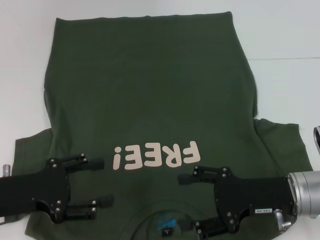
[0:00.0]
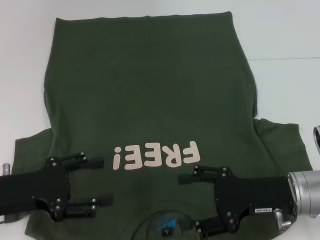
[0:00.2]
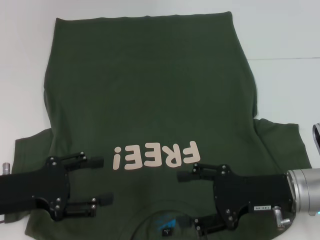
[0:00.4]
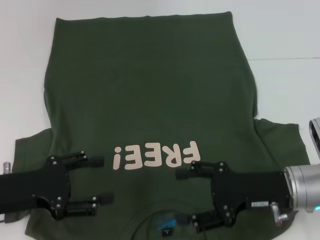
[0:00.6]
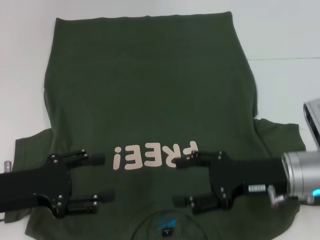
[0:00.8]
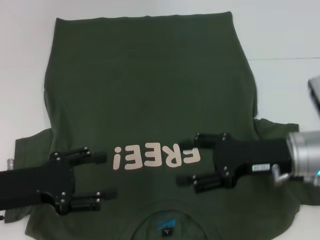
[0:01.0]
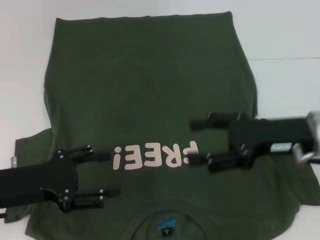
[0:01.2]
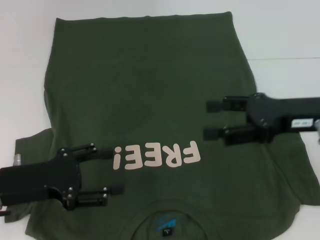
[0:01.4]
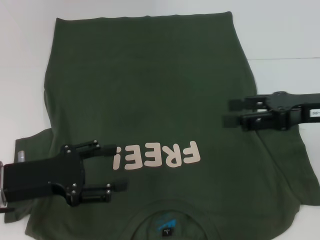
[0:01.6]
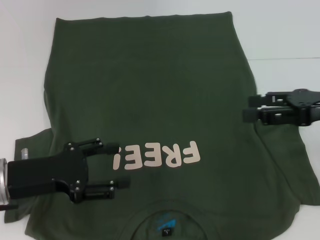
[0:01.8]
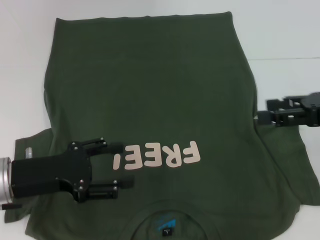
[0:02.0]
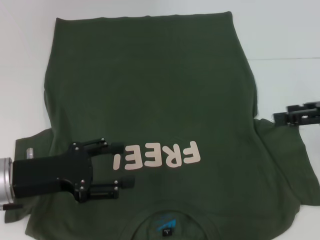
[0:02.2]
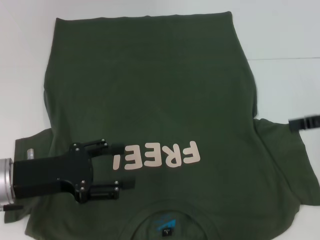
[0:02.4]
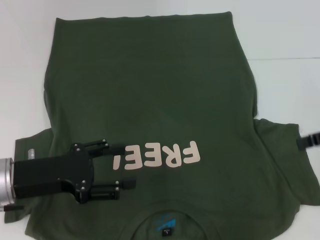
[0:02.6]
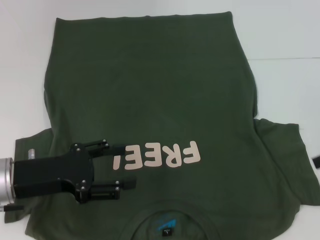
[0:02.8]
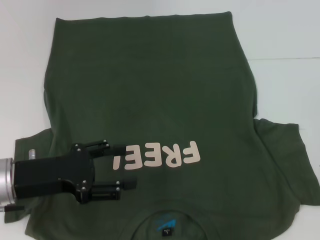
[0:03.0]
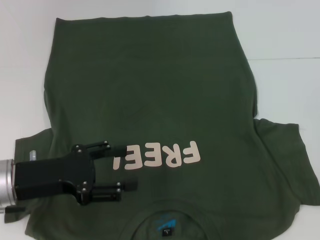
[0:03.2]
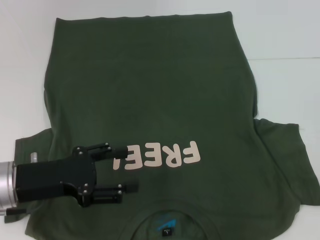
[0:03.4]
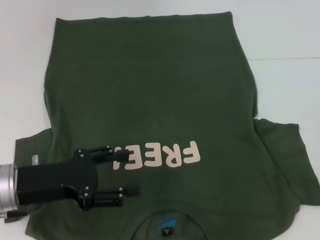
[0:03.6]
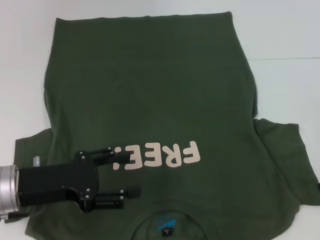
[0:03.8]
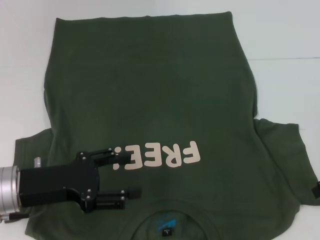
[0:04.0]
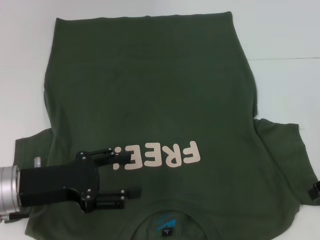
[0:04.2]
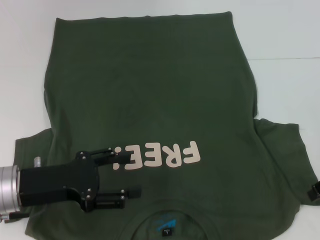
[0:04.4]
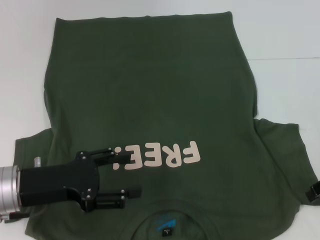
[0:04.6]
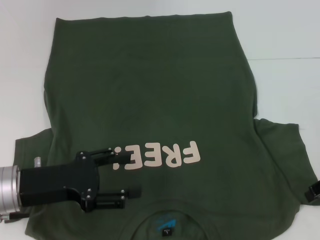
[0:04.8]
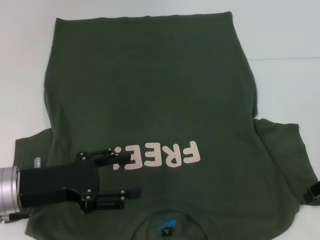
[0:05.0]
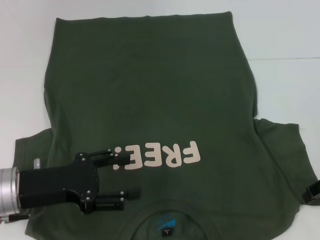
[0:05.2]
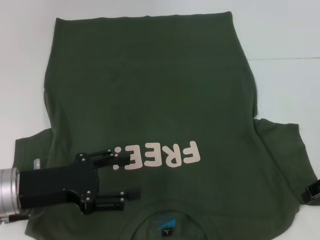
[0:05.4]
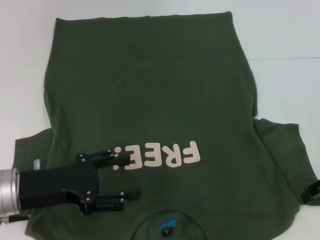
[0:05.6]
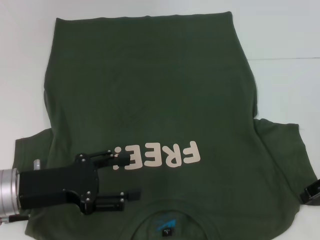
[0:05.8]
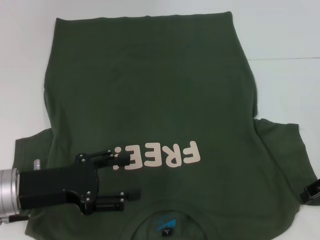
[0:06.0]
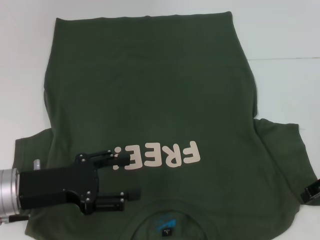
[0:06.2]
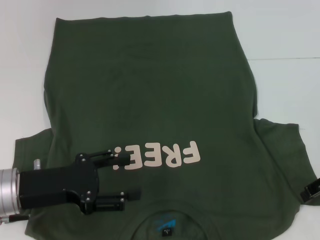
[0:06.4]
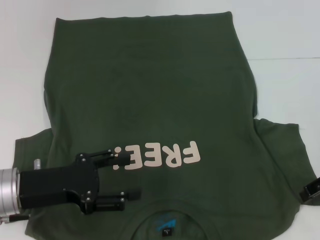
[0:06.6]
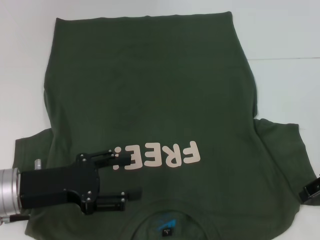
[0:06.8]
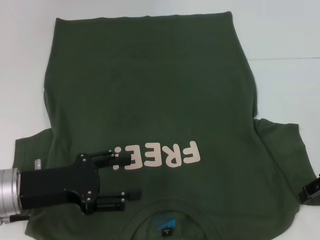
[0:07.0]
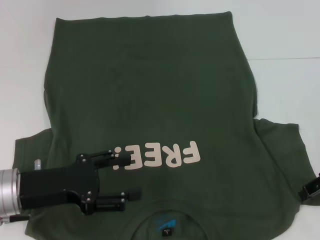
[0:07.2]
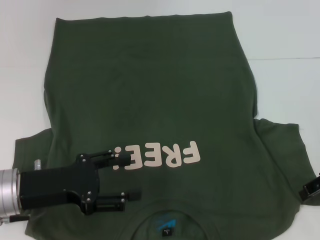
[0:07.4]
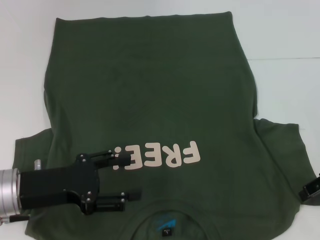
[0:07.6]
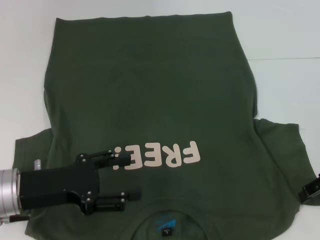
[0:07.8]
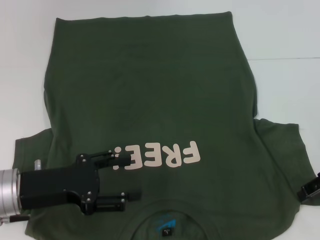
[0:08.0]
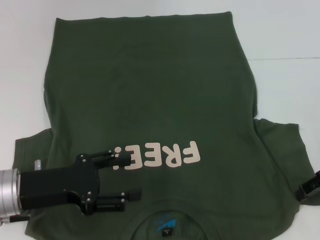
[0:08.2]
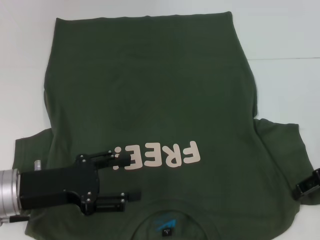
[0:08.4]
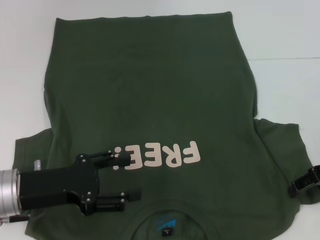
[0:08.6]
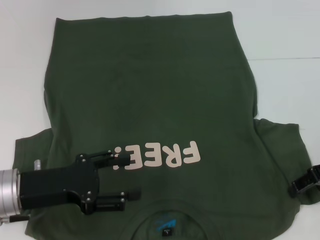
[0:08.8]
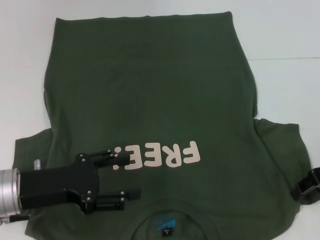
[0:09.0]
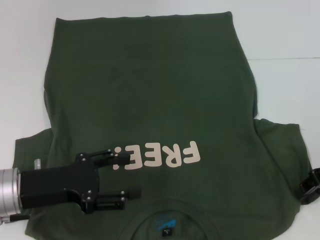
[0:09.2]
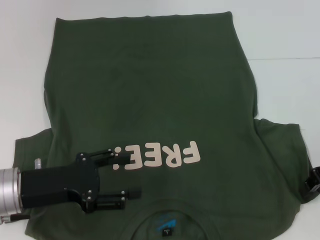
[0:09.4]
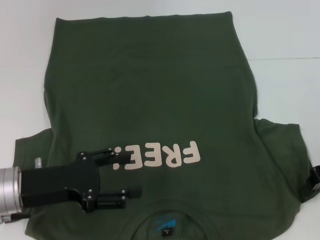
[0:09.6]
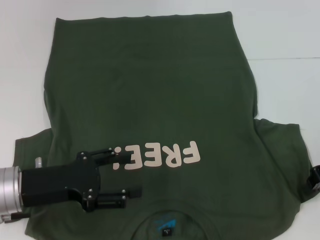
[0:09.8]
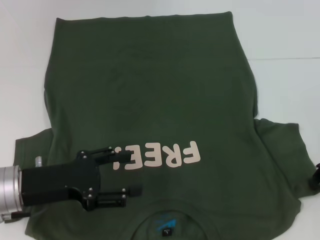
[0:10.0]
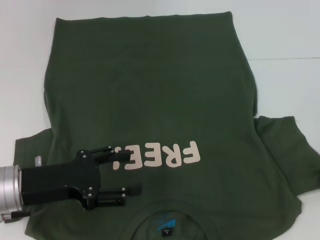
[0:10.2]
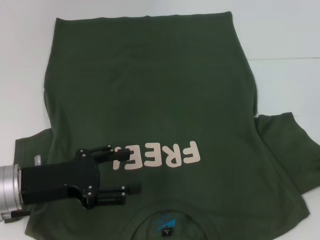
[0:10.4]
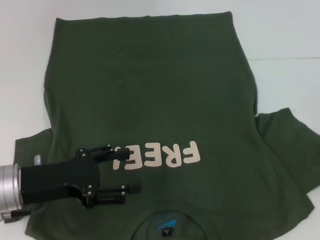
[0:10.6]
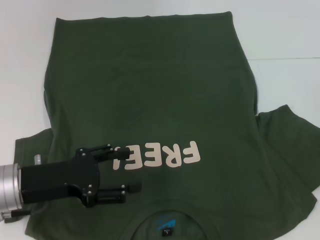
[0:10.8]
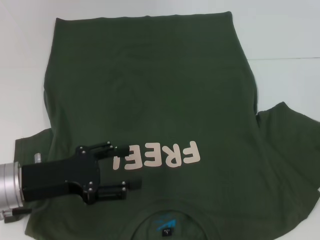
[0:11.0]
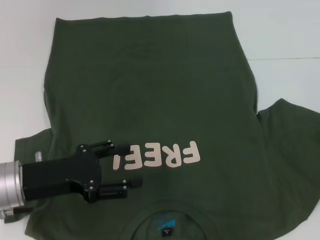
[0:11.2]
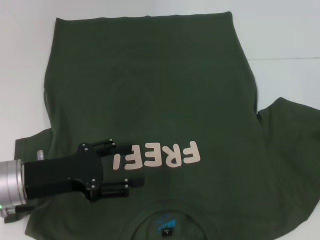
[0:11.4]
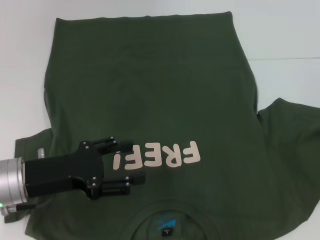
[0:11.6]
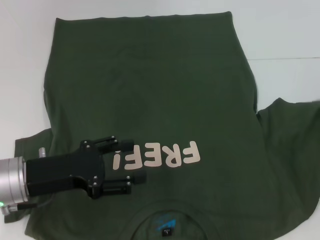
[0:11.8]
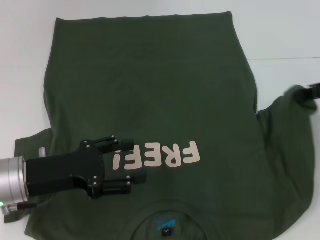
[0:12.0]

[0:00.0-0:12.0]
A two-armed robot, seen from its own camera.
0:00.0 to 0:01.6: The right gripper shifts roughly 15 cm upward, to the right and forward.
0:01.6 to 0:03.0: The right gripper shifts roughly 10 cm to the right.
0:03.0 to 0:04.4: The right gripper goes some 5 cm downward.
0:04.4 to 0:07.6: Both grippers stay put.
0:07.6 to 0:09.0: Both grippers stay put.
0:09.0 to 0:10.4: The right gripper closes its fingers.
0:10.4 to 0:12.0: The right gripper shifts some 5 cm upward.

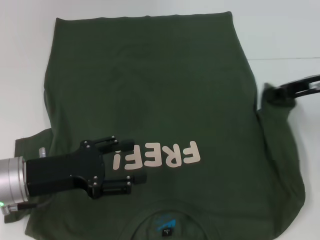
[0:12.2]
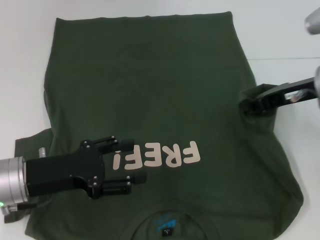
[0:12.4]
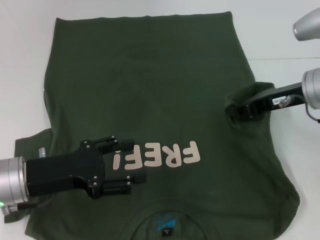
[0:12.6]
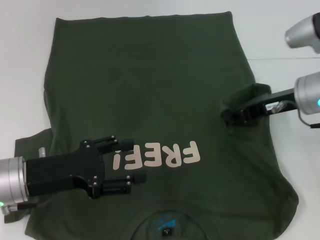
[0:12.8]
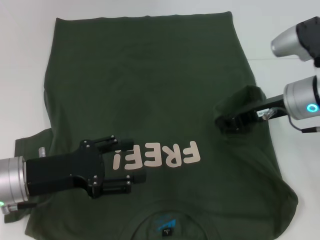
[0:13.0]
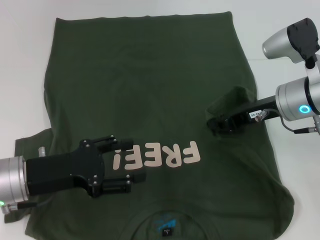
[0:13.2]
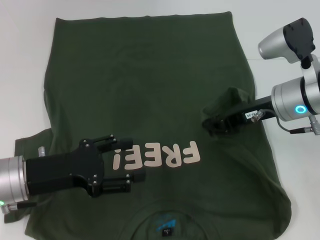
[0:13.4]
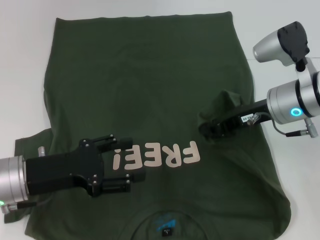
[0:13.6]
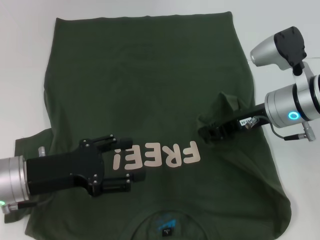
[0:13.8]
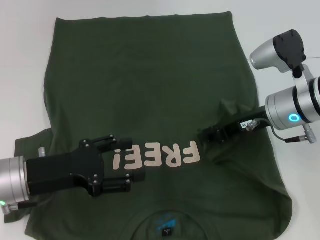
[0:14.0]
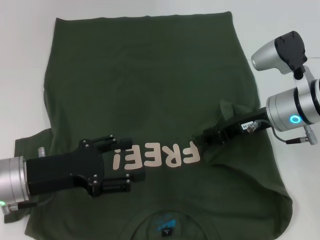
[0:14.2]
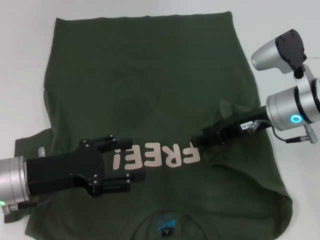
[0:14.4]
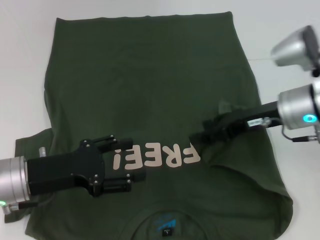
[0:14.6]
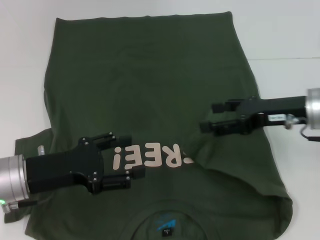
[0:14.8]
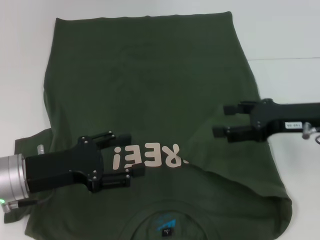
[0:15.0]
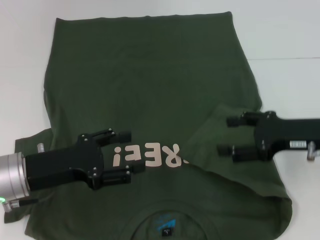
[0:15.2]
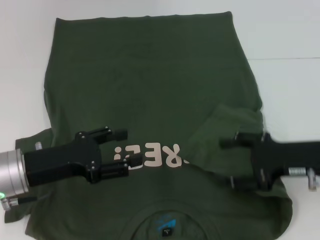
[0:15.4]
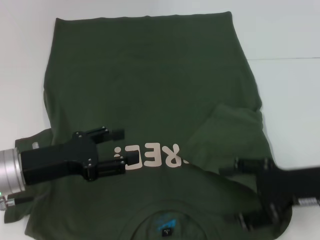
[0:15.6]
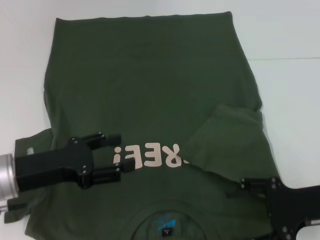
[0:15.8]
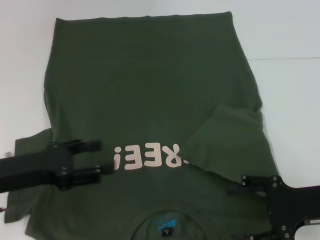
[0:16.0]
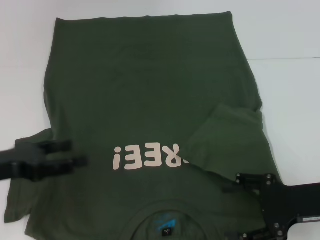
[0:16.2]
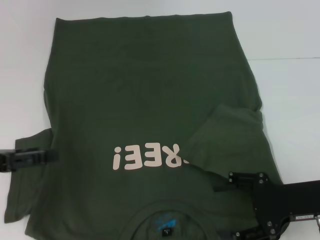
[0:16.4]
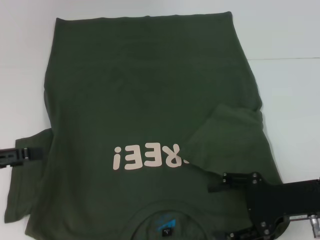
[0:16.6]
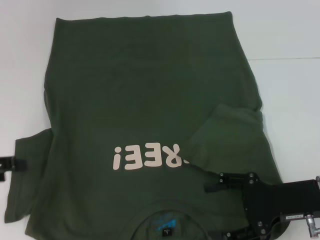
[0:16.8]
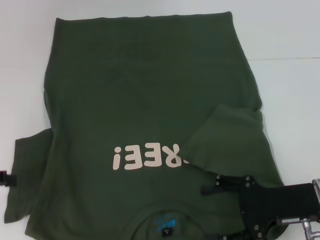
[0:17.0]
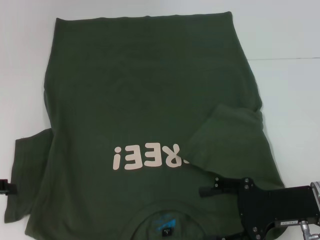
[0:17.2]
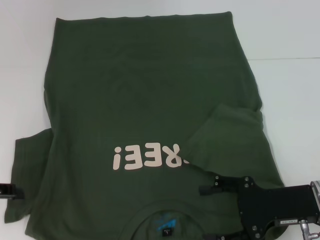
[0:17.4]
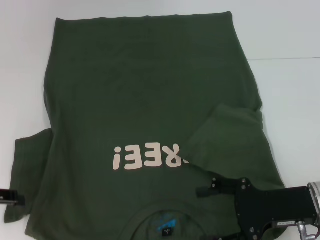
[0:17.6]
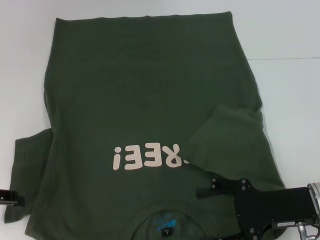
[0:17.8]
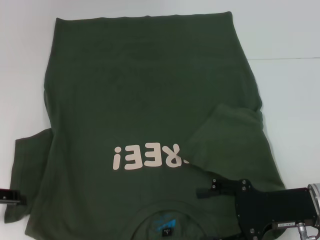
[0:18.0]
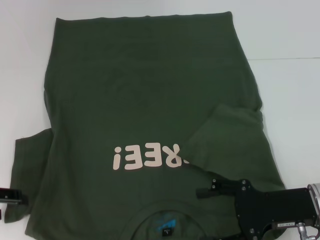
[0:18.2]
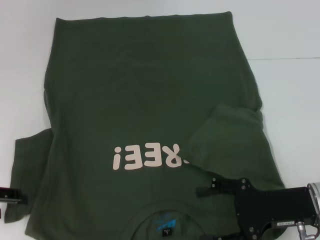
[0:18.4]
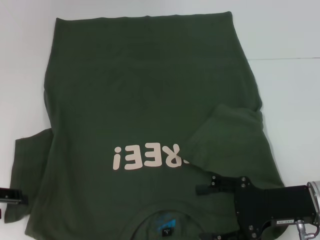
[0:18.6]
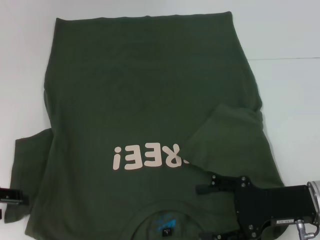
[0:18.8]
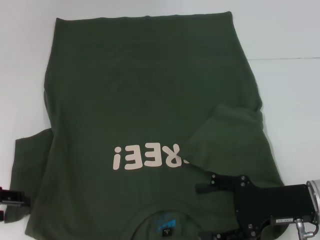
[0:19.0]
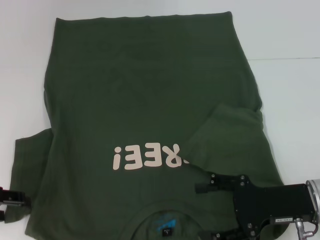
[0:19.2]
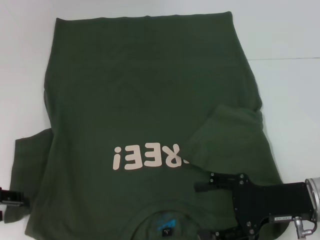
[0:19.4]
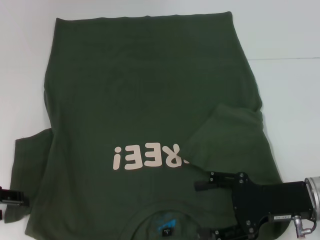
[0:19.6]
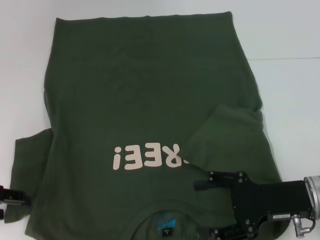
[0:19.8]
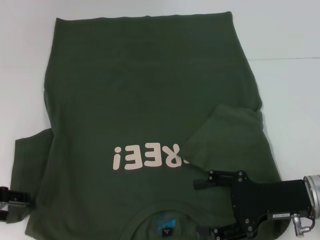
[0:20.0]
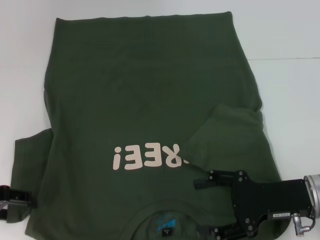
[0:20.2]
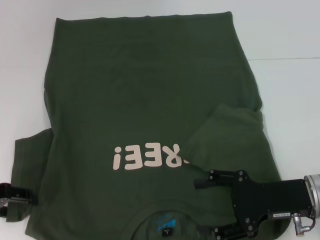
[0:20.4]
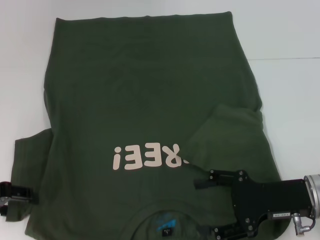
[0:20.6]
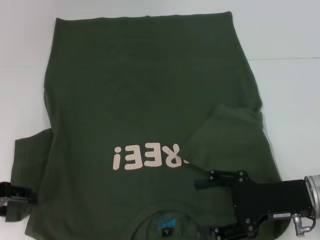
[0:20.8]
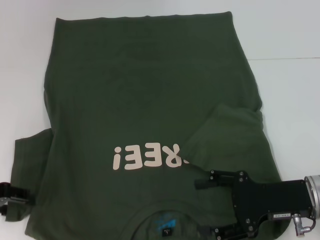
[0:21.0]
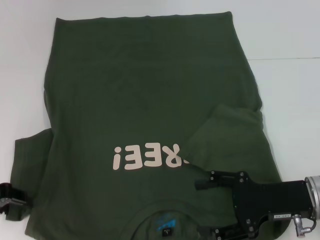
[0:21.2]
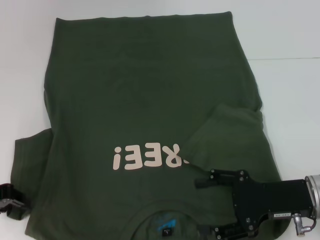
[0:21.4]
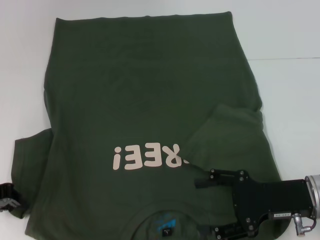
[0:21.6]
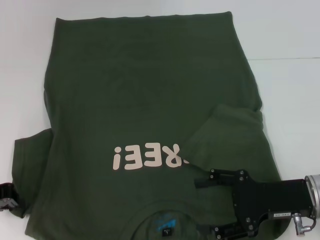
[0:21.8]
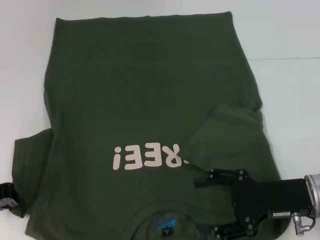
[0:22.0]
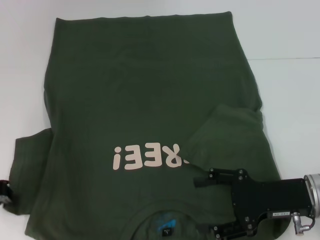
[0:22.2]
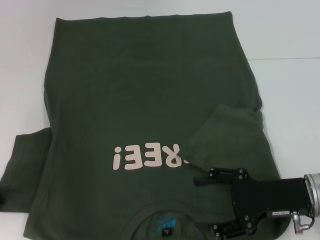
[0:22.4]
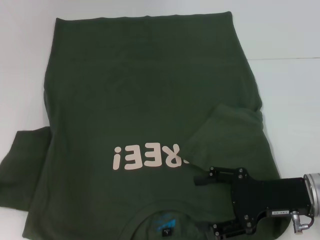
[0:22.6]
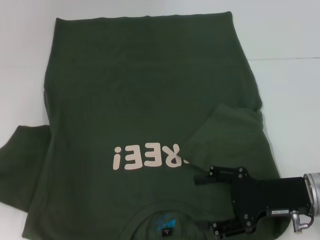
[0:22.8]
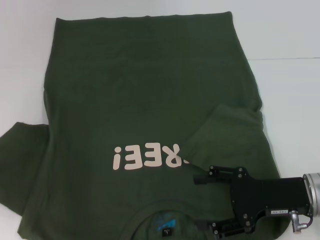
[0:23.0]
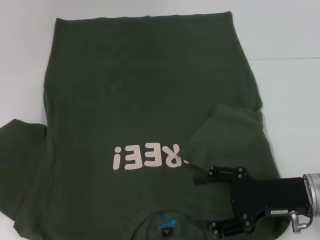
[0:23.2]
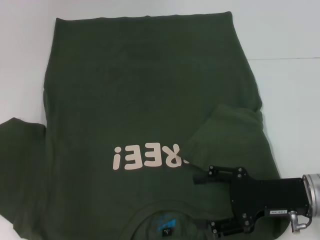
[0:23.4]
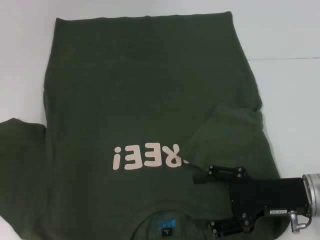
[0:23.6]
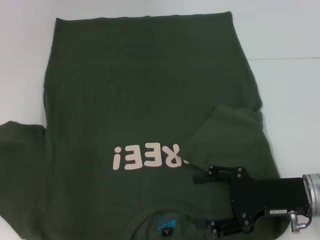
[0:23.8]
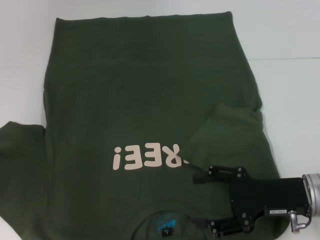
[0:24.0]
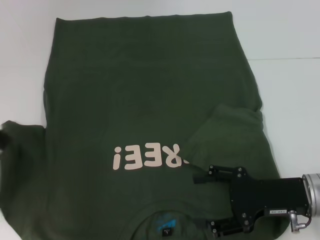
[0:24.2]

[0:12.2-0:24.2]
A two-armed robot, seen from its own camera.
Step, 0:12.2 to 0:15.6: Fold the bottom right sleeve with your right hand.
0:12.2 to 0:13.8: The right gripper shifts some 10 cm to the left and downward.
0:13.8 to 0:15.2: The right gripper goes about 10 cm to the right and backward, and opens.
0:15.2 to 0:16.6: The right gripper travels backward by some 5 cm. The left gripper goes roughly 15 cm to the left and upward.
0:18.2 to 0:19.8: Both grippers stay put.
0:19.8 to 0:21.2: Both grippers stay about where they are.
0:21.2 to 0:22.6: The left gripper closes its fingers.
0:22.6 to 0:24.2: The grippers stay close to where they were, moving slightly.
